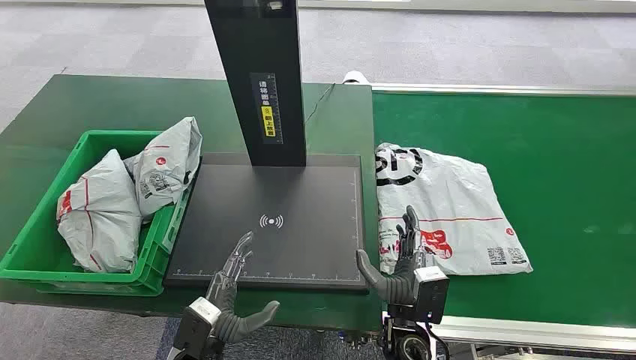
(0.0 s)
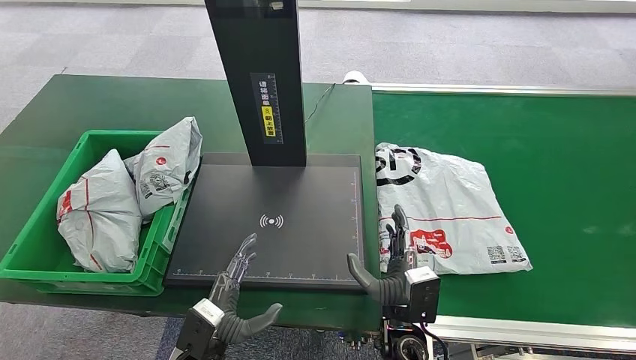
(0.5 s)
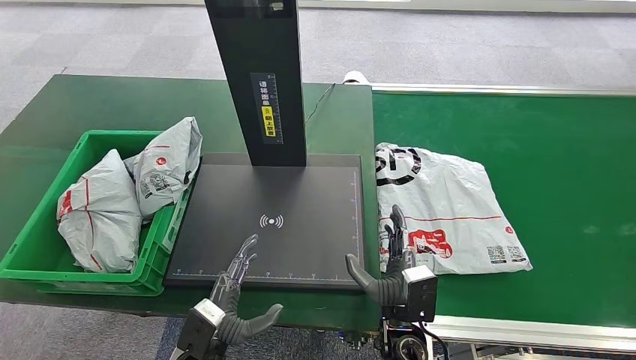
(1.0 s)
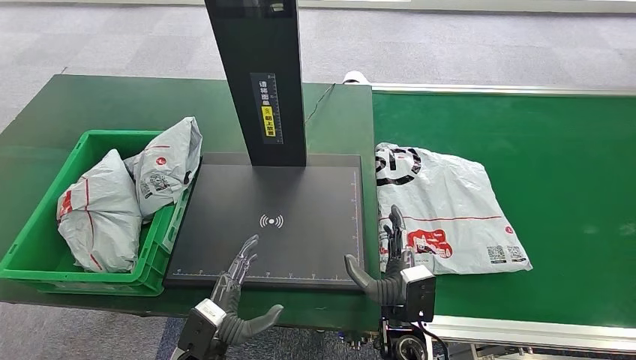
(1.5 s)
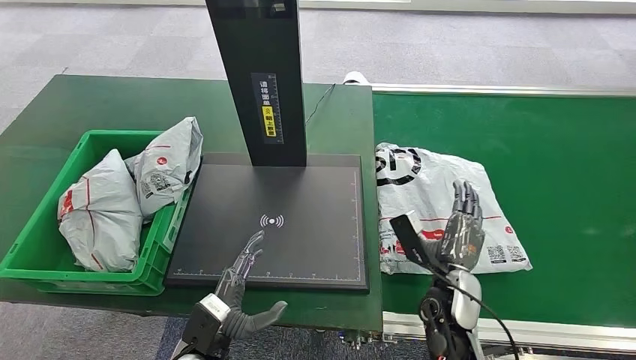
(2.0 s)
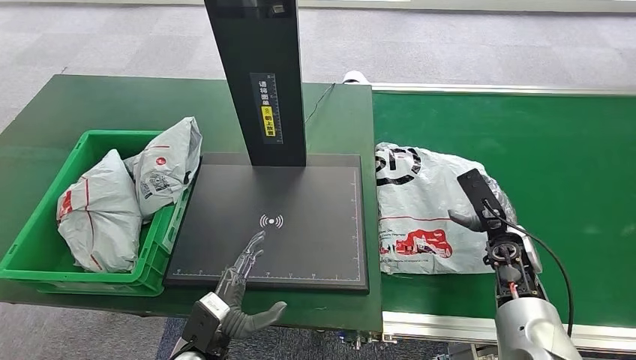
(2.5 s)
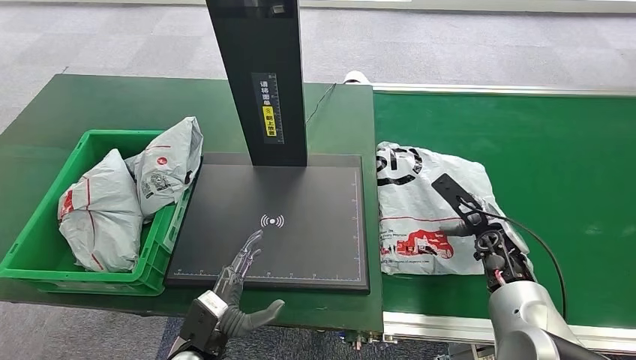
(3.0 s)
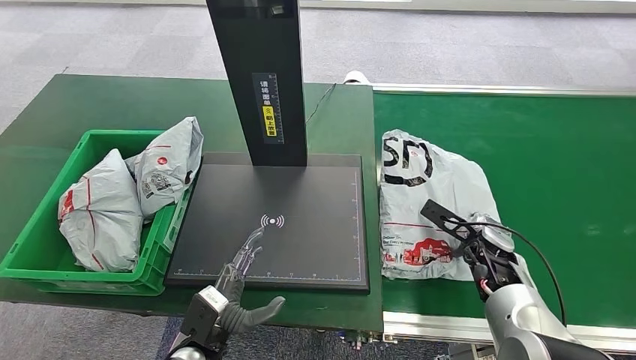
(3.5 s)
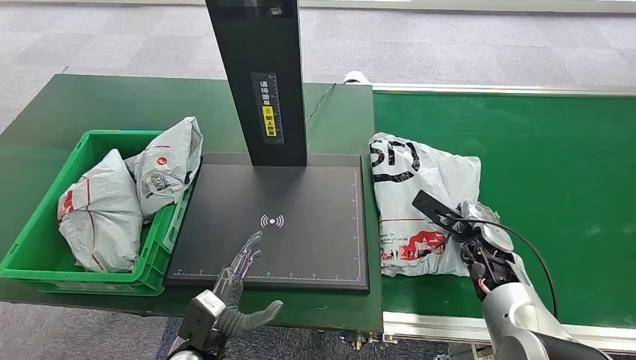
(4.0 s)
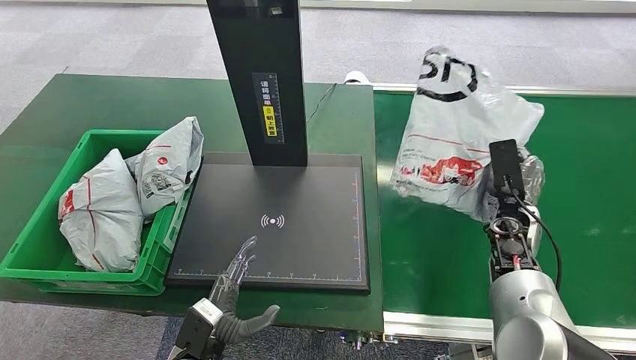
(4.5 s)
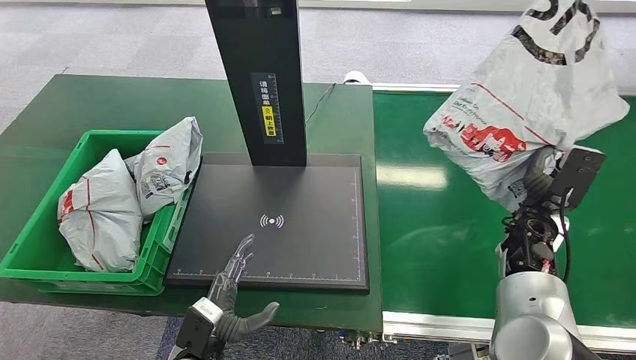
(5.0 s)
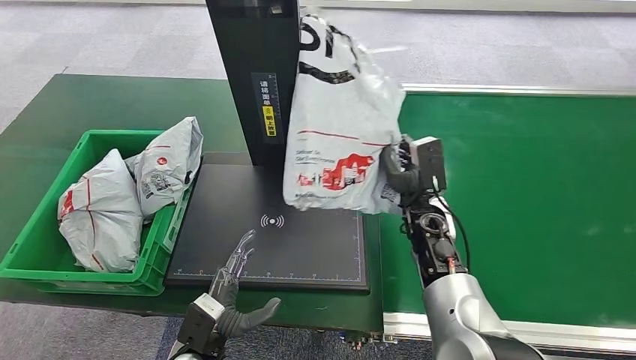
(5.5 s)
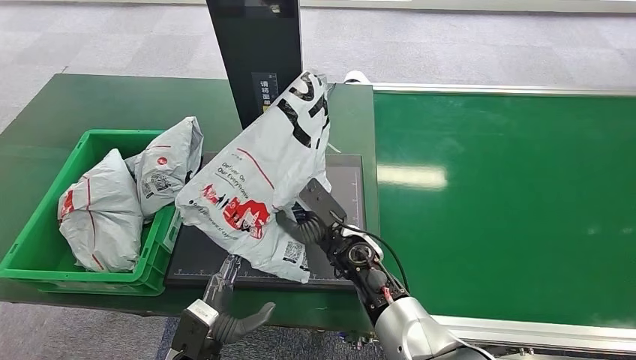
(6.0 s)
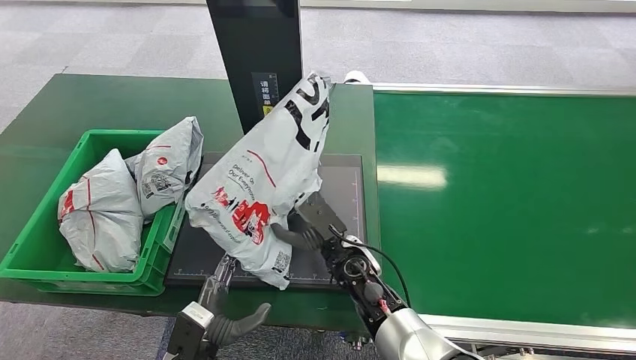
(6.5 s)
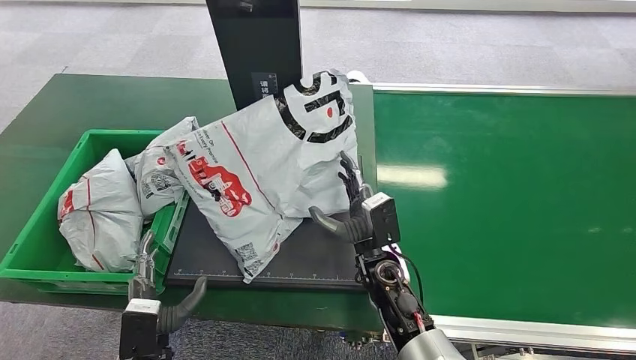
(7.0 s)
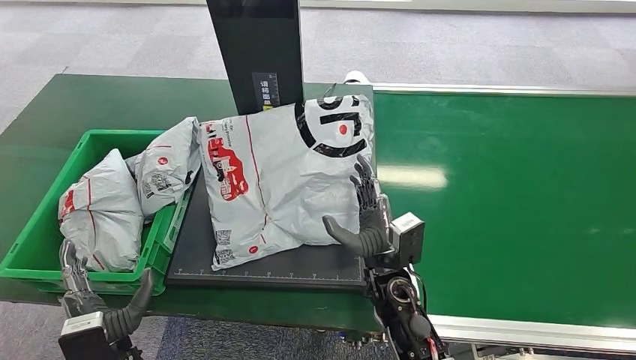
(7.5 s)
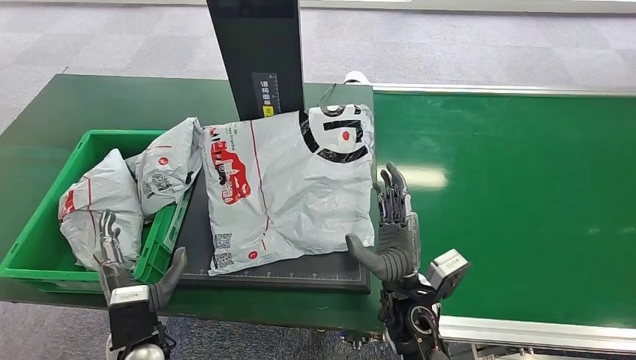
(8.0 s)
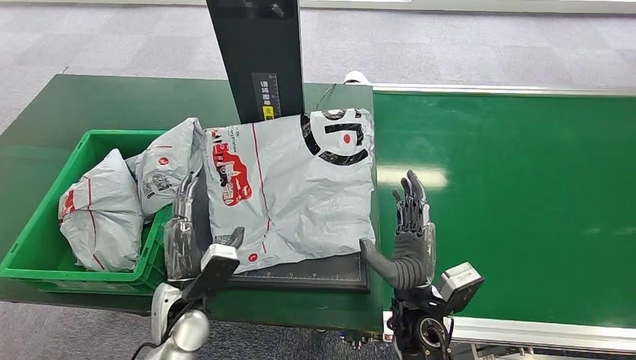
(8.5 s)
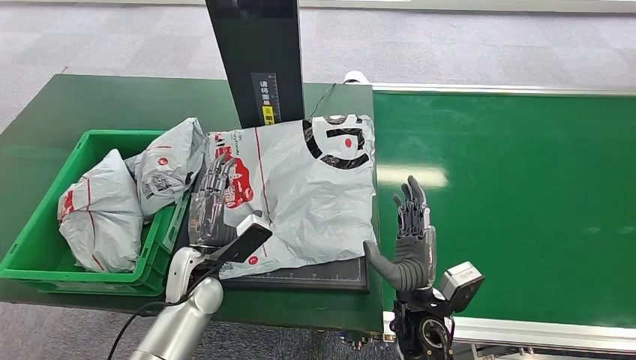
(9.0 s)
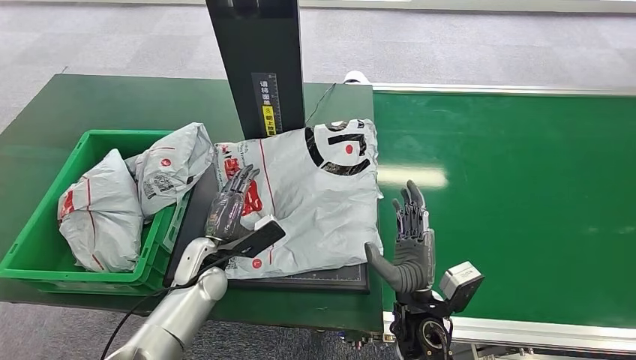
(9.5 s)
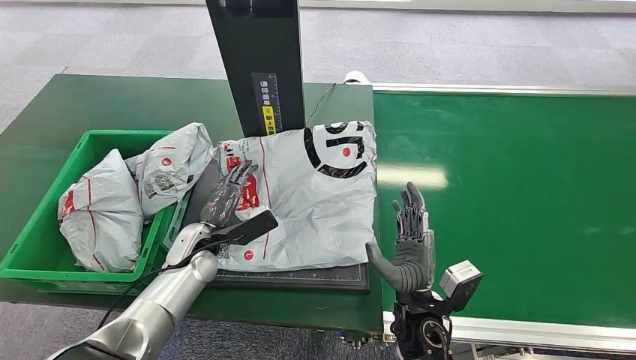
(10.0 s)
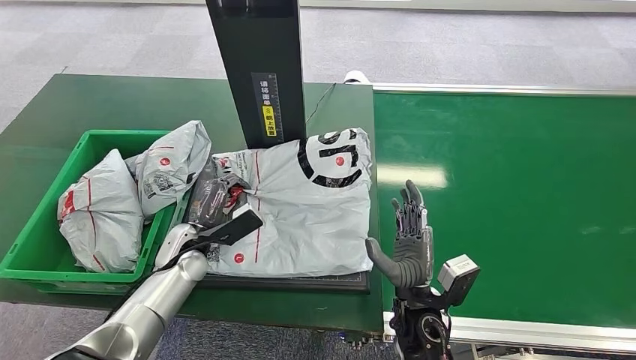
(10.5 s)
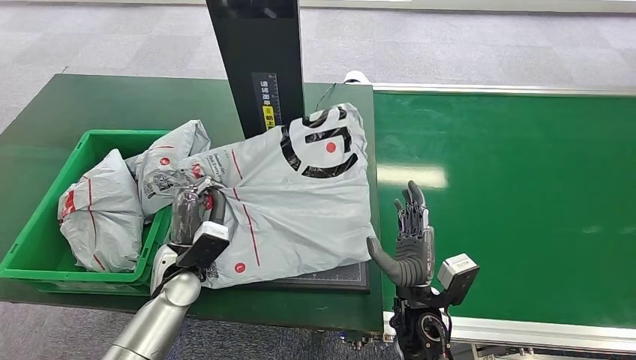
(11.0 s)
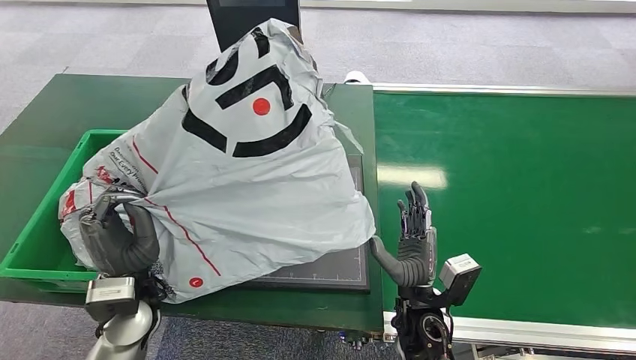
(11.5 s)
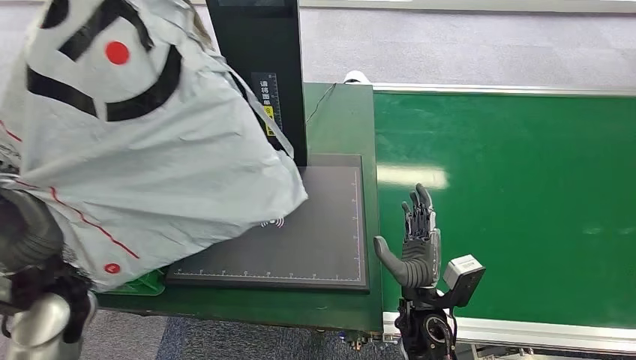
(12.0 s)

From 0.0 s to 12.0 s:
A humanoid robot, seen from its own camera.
Task of the whole recording: Weigh the package on the weighing device and place it in the left basket.
Step, from 0.0 s to 5.0 s: Pick up the package from the conveyor belt.
Step, from 5.5 s to 8.0 s: Place the package onto the inbound machine.
Step, from 8.5 s to 11.5 s: Pick up the package from the inbound machine.
From 2.0 s to 4.0 s: The right hand heads to the right and forward, covering about 15 cm.
From 6.0 s to 8.0 s: The left hand moves to the left, about 5 cm, while the right hand goes some 10 cm backward and to the right.
From 8.0 s to 10.0 s: The left hand is displaced forward by approximately 15 cm.

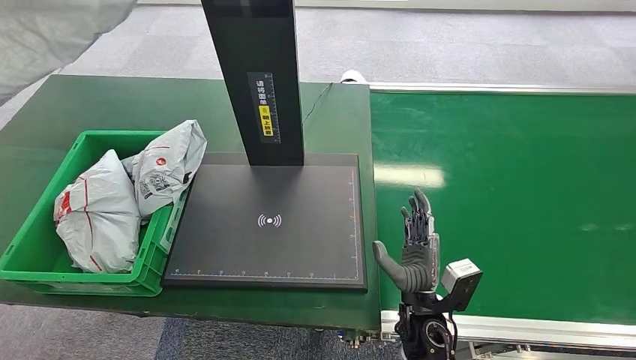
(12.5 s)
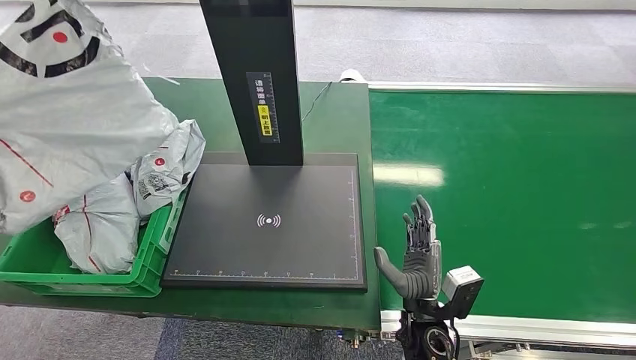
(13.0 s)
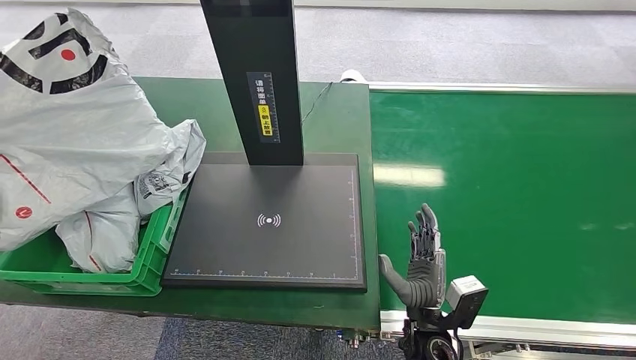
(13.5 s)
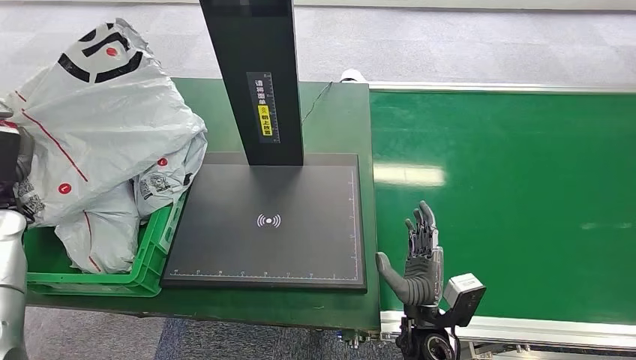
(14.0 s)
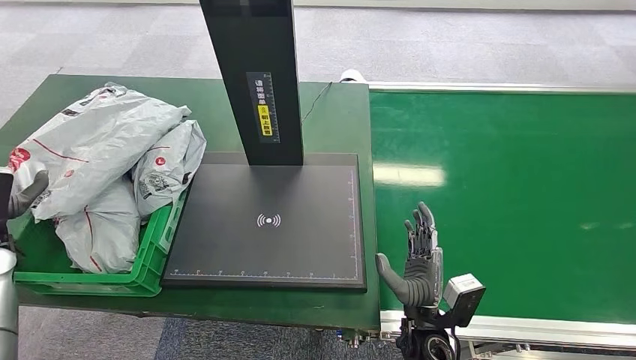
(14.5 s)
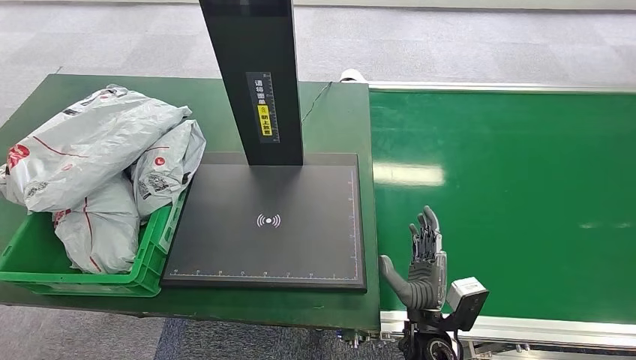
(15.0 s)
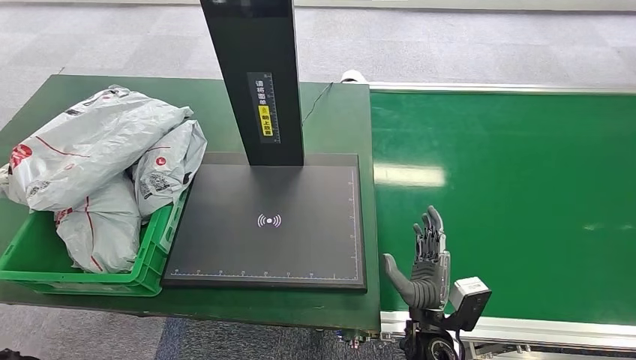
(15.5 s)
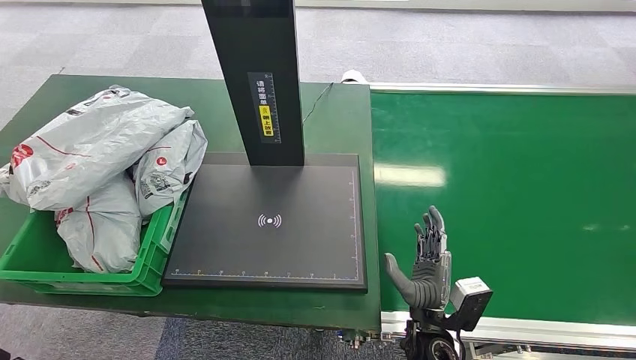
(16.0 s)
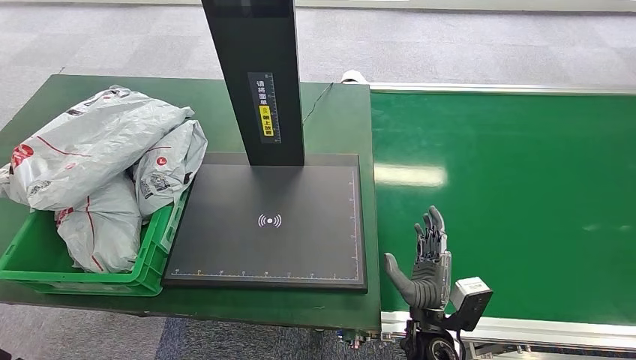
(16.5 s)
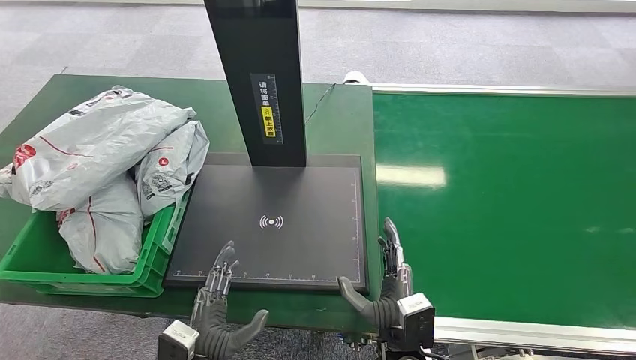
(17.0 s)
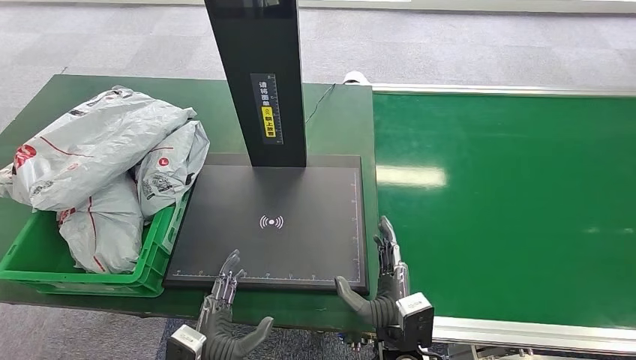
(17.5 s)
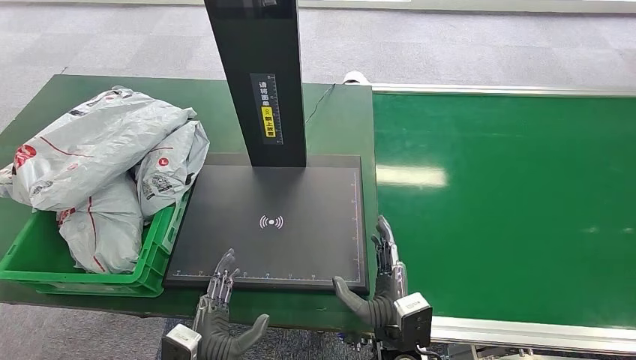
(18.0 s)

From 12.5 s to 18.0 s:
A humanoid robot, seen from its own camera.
Task of the whole recording: Weigh the package on the weighing device and place it in the left basket.
Step, from 12.5 s to 18.0 s: Place the package into the parcel locker.
From 12.5 s to 14.5 s: The left hand moves downward, some 25 cm.
From 14.5 s to 16.0 s: The left hand travels to the right and backward by approximately 30 cm.
From 16.0 s to 18.0 s: The right hand shifts about 5 cm to the left; the left hand goes about 25 cm downward and to the right.
